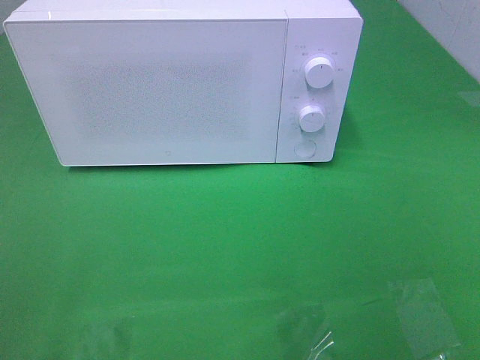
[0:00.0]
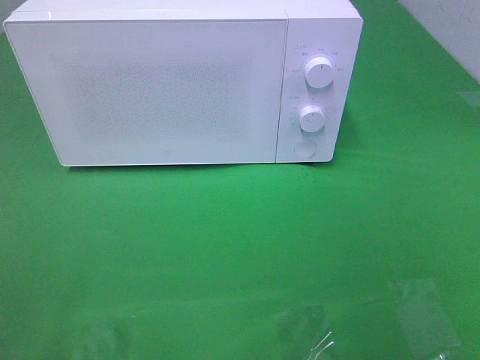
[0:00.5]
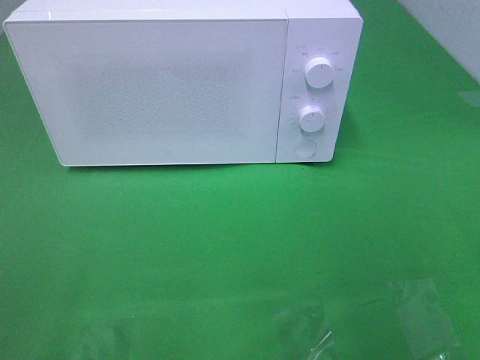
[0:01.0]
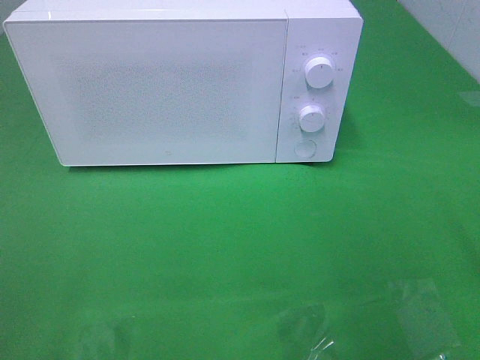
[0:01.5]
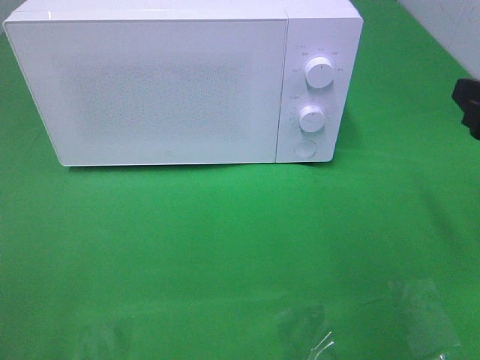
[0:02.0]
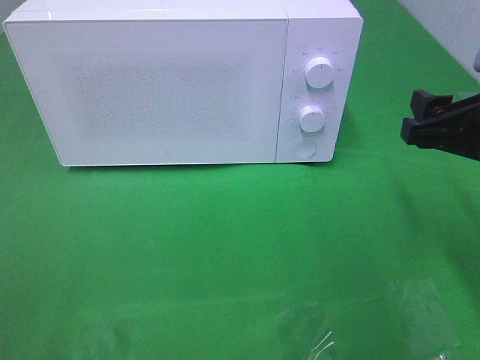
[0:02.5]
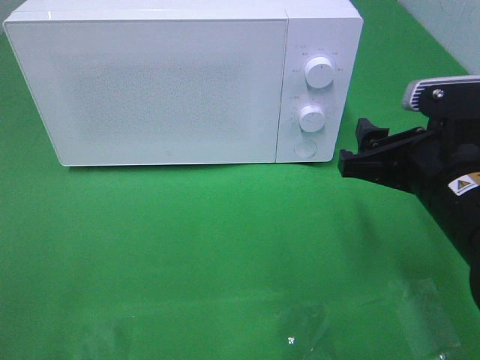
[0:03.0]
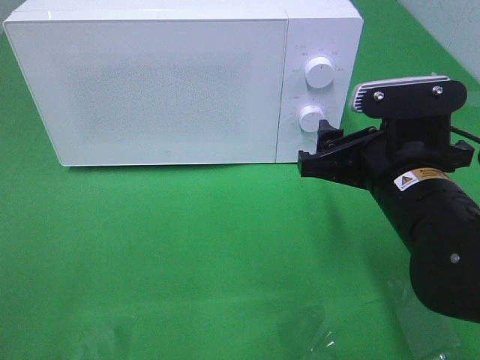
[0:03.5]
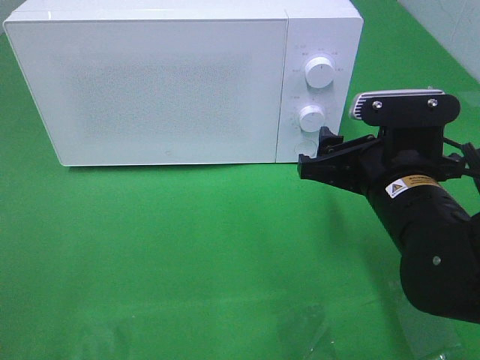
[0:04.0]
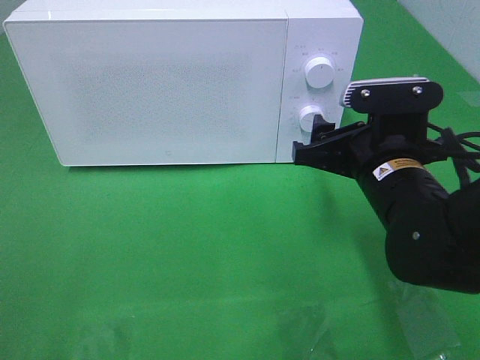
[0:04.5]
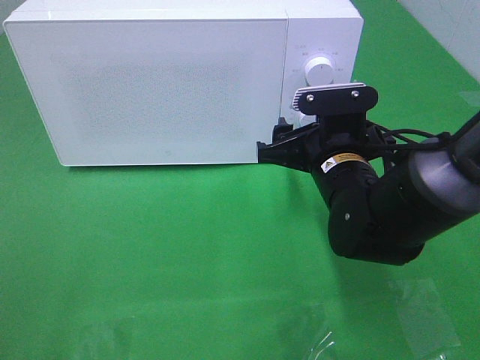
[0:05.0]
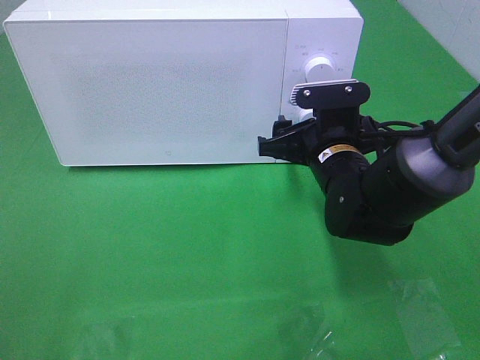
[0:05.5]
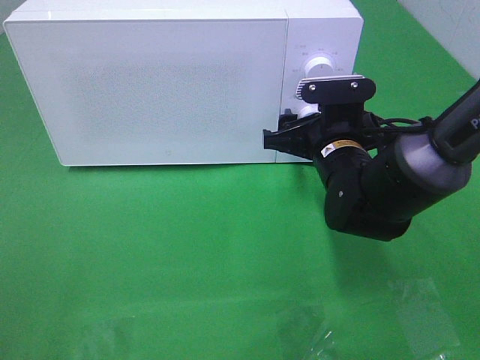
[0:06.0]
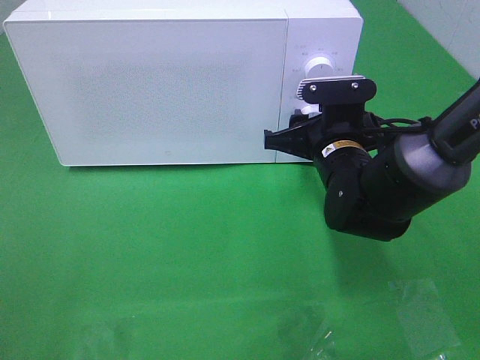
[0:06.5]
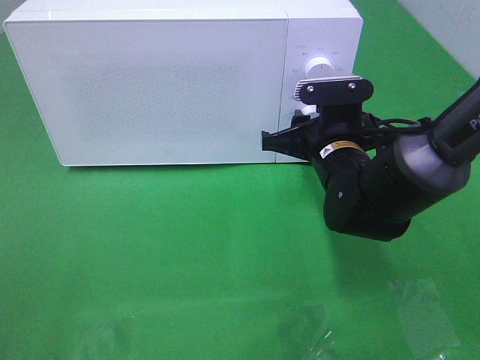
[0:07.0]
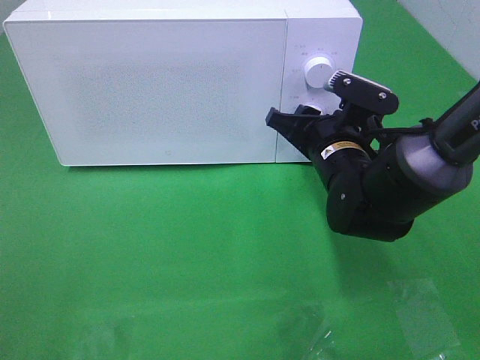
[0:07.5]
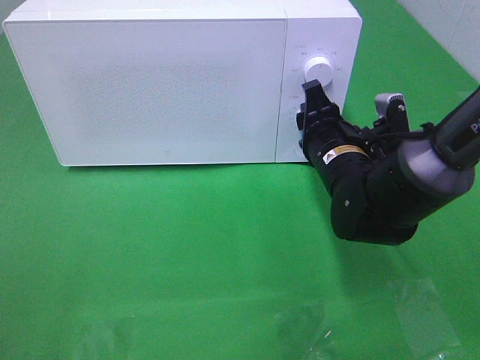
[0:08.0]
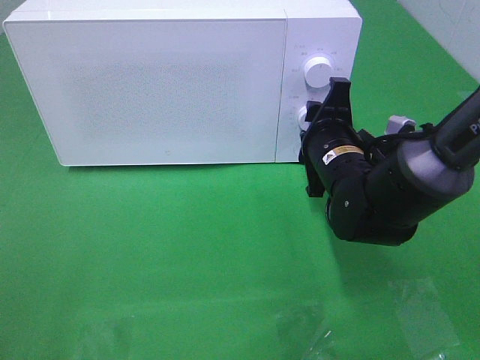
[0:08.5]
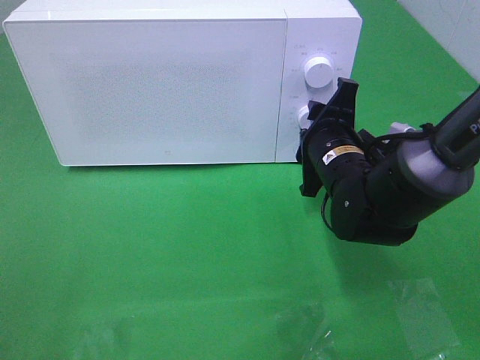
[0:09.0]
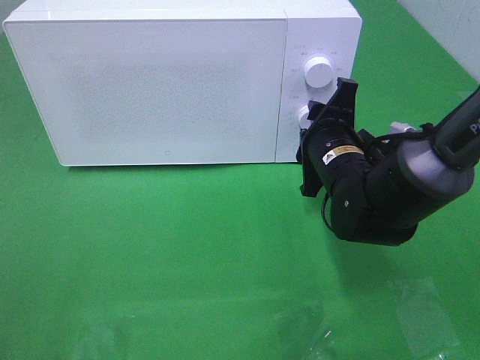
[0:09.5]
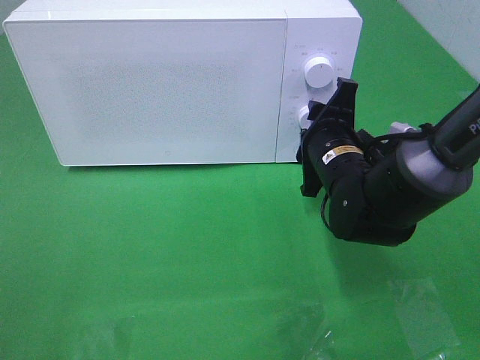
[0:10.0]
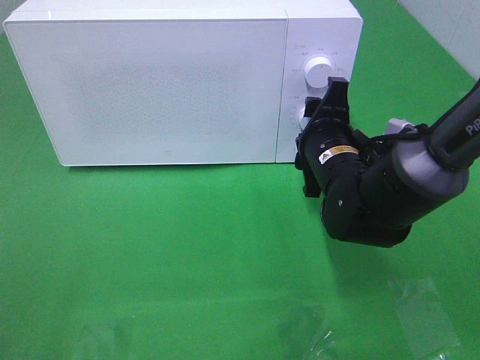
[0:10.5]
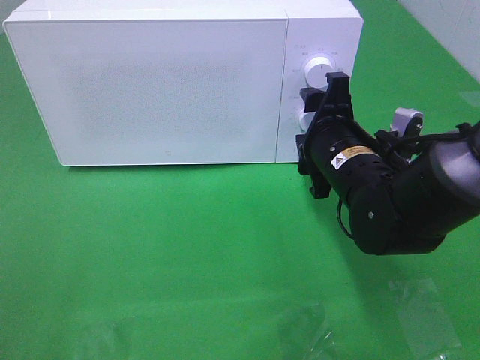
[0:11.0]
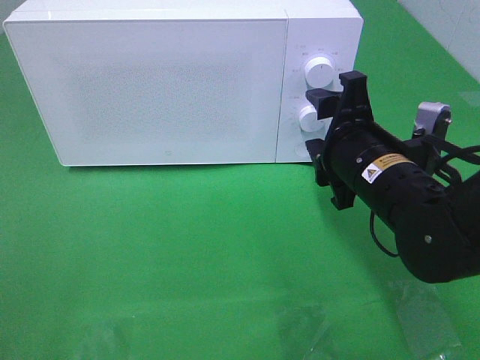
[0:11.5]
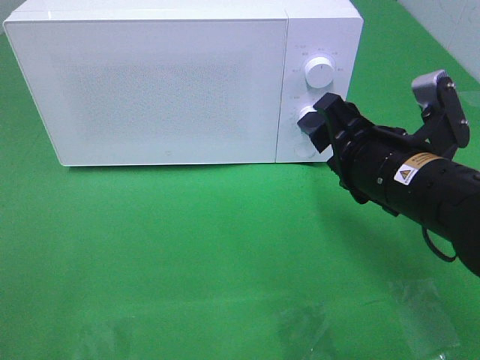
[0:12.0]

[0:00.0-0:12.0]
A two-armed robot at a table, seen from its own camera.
Task of the whole recording: Heat the burger.
Step, 0:00.0 to 0:11.0: Right hand: twist timer button.
0:00.0 to 0:02.0: The right gripper heads forward, covering about 20 cm.
0:02.0 to 0:04.0: The right gripper shifts some 15 cm to the left and downward.
0:04.0 to 0:06.0: The right gripper is displaced forward by about 10 cm.
0:06.0 to 0:08.0: The right gripper closes up.
0:10.0 to 0:12.0: The right gripper is displaced backward and upward by approximately 10 cm.

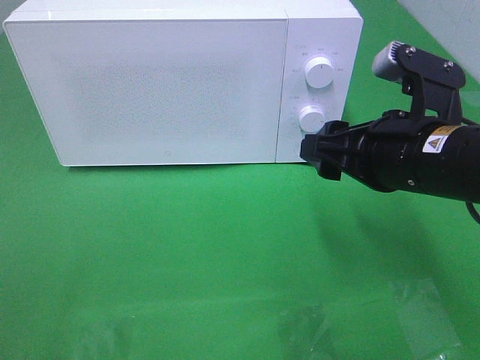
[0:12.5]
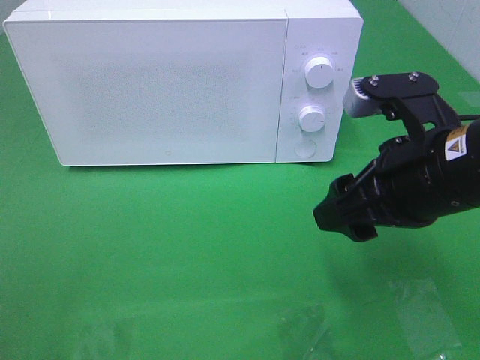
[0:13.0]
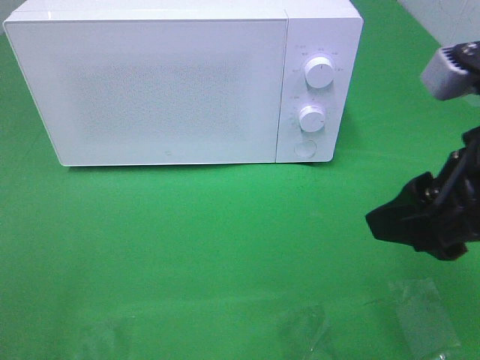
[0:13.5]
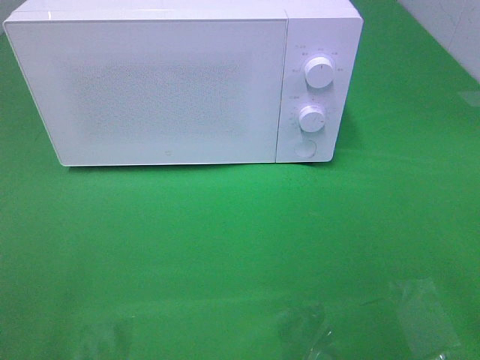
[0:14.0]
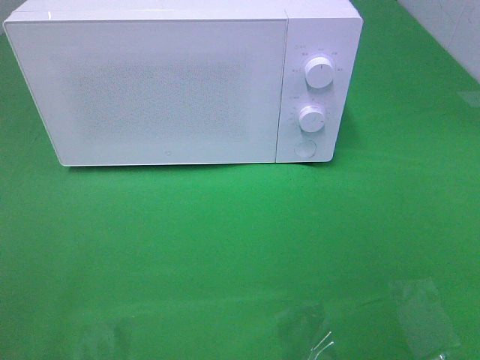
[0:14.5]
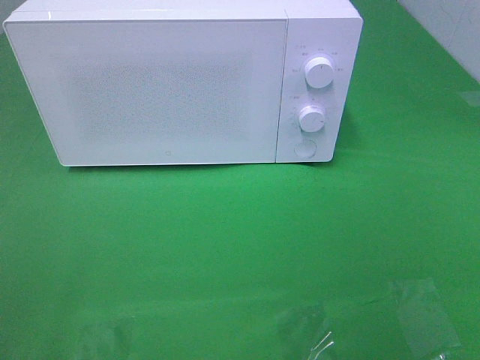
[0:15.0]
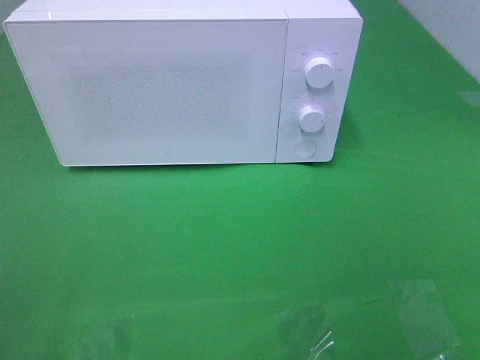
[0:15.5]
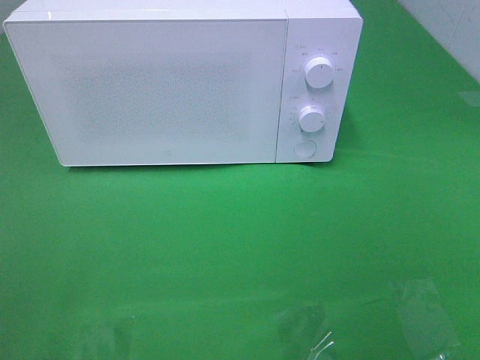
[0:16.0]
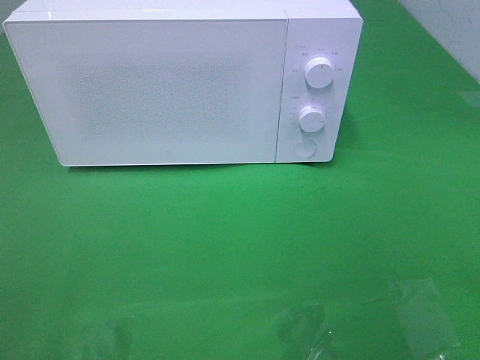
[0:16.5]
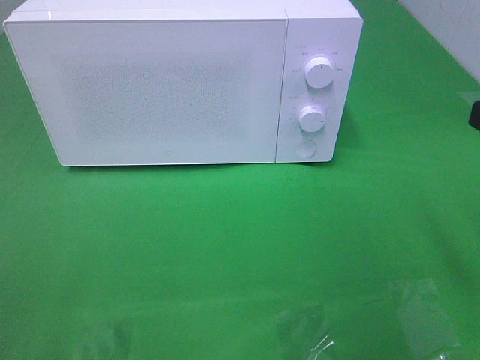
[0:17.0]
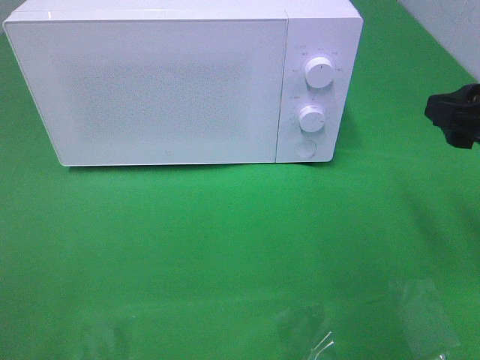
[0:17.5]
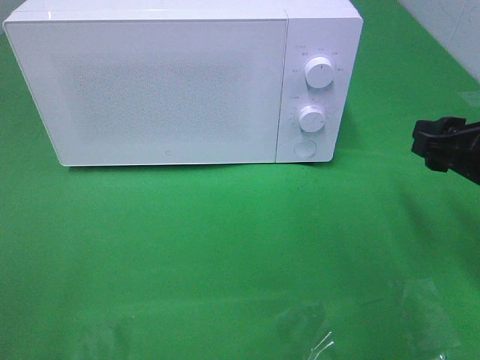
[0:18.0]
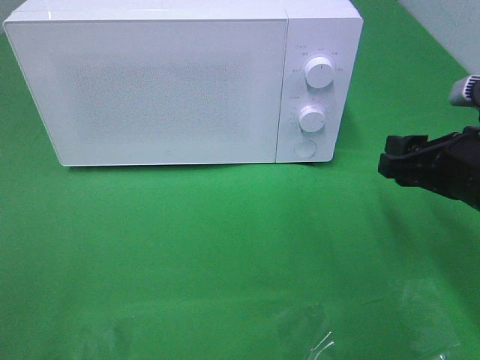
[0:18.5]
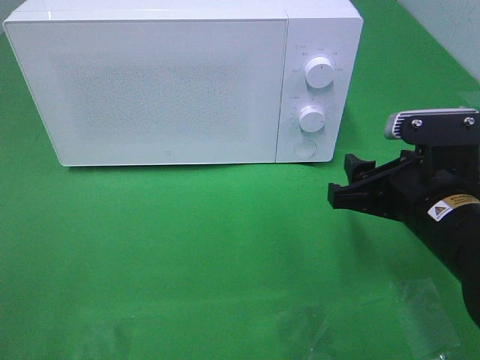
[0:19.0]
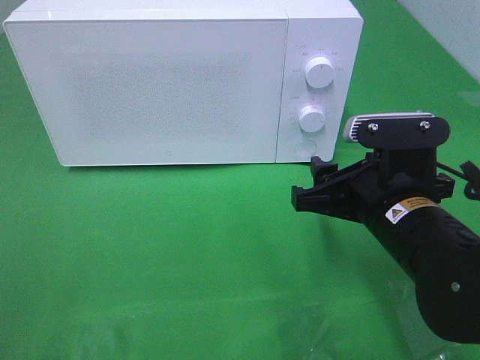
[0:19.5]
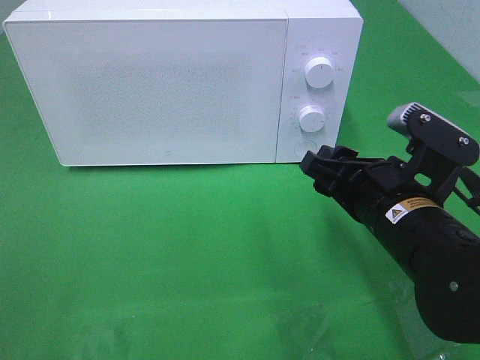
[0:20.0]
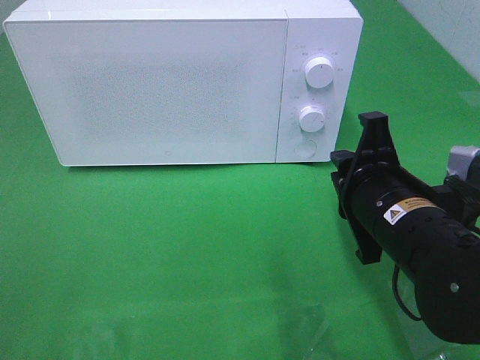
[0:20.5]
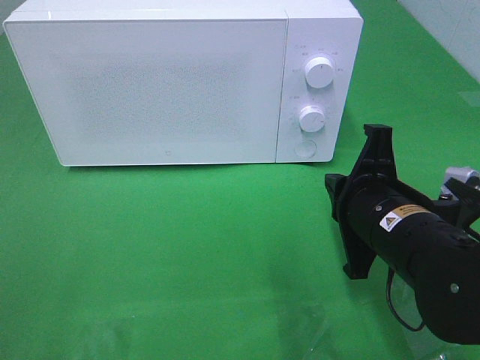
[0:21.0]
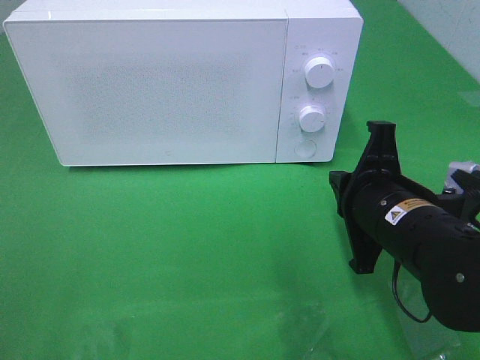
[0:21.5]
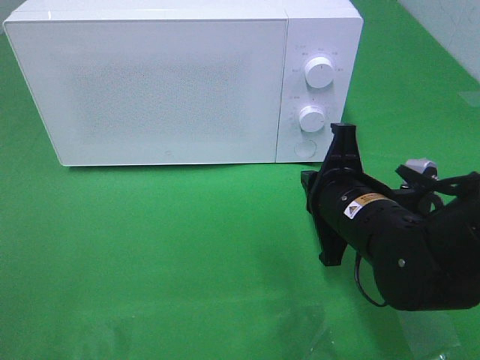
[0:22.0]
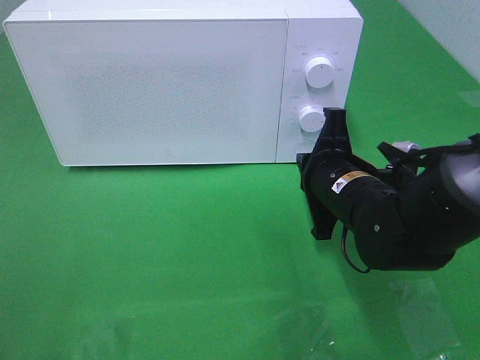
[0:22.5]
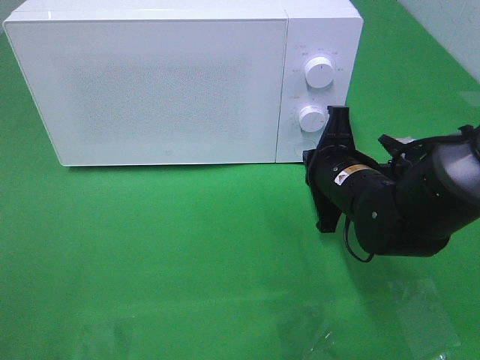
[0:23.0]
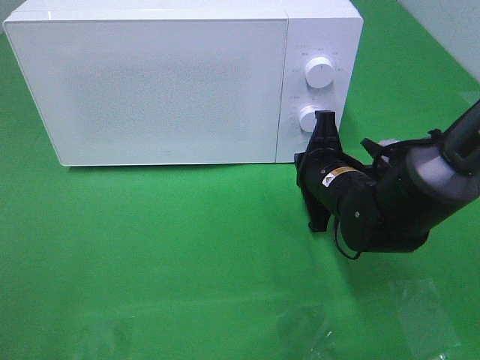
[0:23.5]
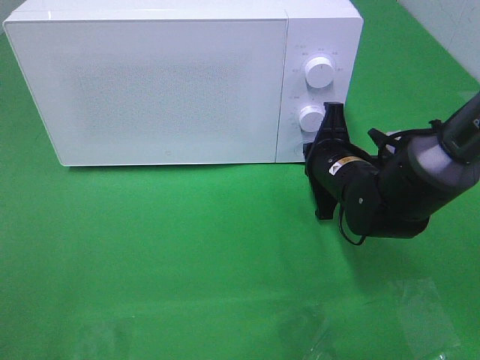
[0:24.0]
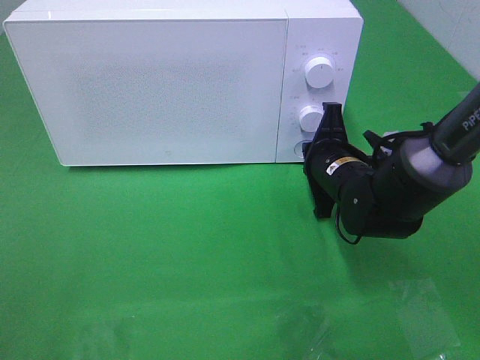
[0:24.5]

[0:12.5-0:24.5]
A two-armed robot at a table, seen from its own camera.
Task of the whole recording: Heat the burger.
0:12.5 to 0:14.5: The right gripper goes some 25 cm backward, to the right and upward.
0:16.5 to 0:18.5: The right gripper moves forward and downward, approximately 20 cm.
0:18.5 to 0:20.5: The right gripper travels to the left by about 10 cm, and closes.
0:20.5 to 0:22.5: The right gripper travels forward by about 5 cm.
0:22.5 to 0:24.5: The right gripper shifts some 5 cm forward.

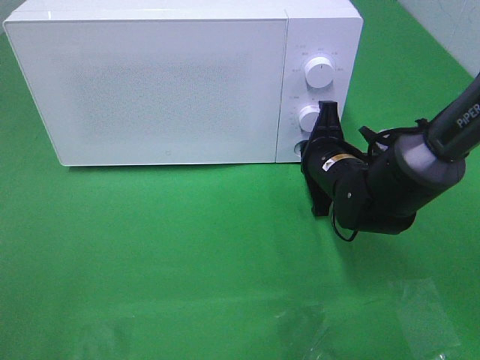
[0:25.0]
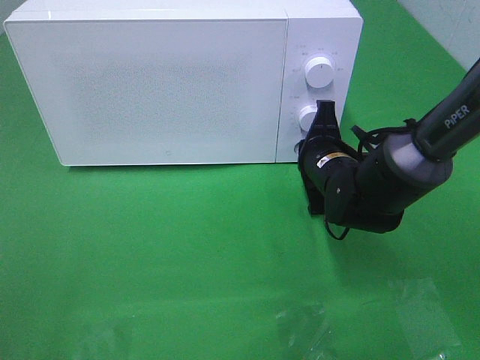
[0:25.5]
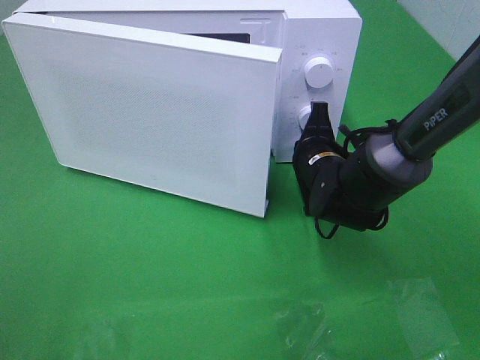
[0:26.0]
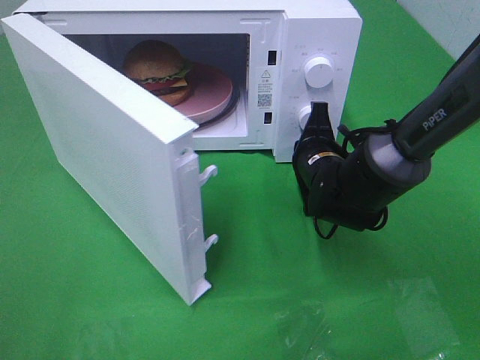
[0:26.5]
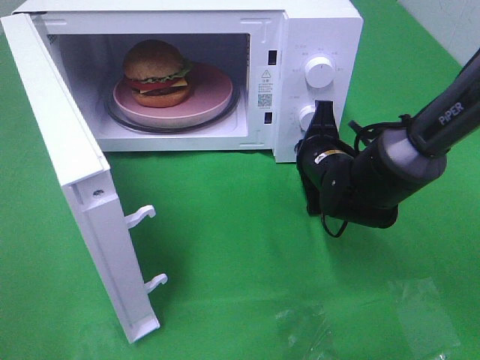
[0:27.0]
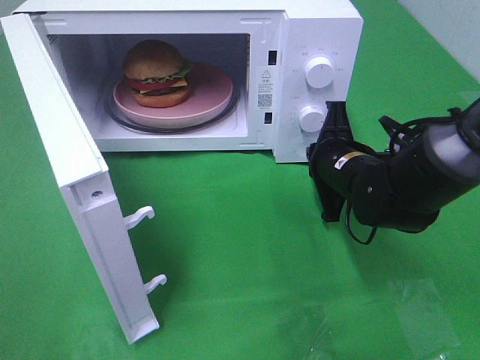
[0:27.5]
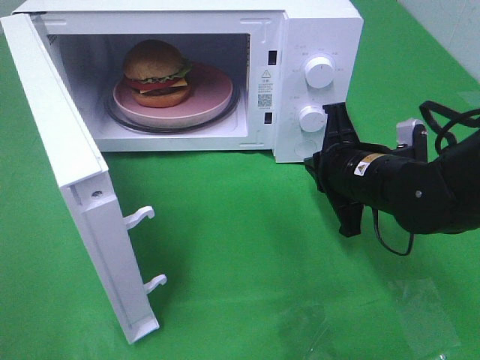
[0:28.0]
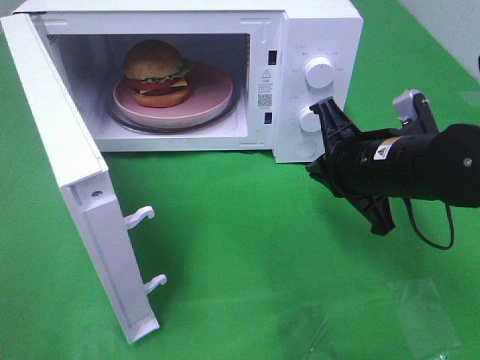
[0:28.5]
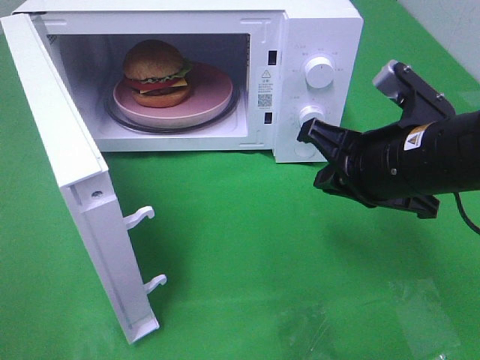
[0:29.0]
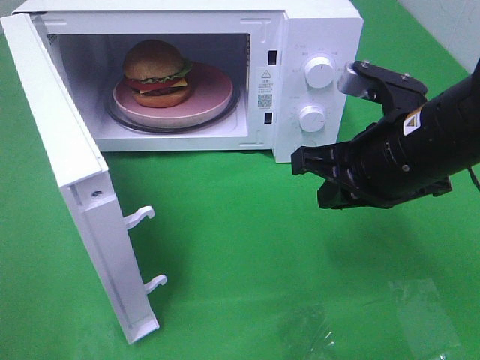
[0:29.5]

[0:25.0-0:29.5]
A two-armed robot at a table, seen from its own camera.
Task of the whole recording: Heat the burger.
Step, 0:25.0 to 0:27.5: Right hand: press the switch.
0:27.0 to 0:29.5: The right gripper shifts approximately 15 cm upward and backward.
